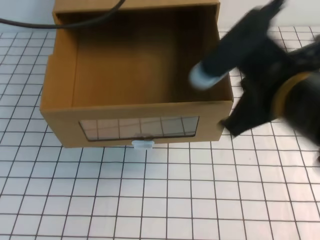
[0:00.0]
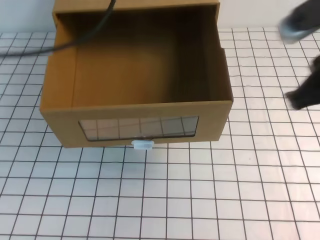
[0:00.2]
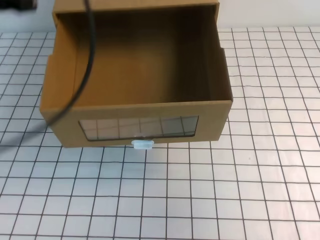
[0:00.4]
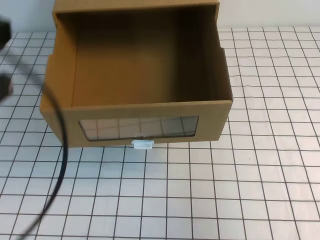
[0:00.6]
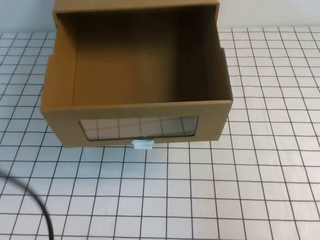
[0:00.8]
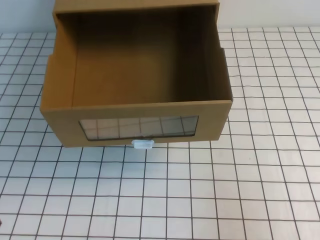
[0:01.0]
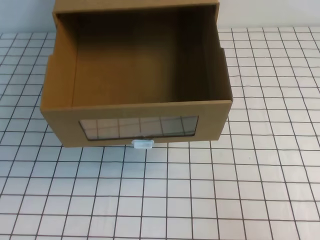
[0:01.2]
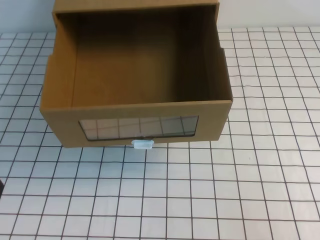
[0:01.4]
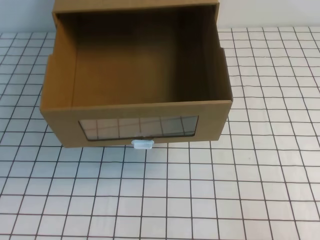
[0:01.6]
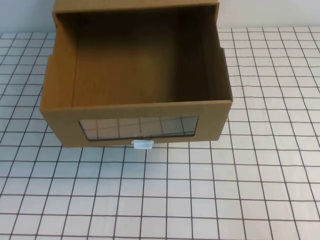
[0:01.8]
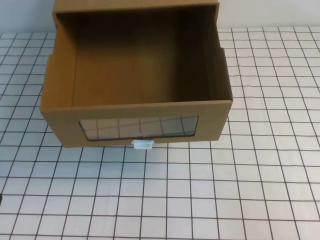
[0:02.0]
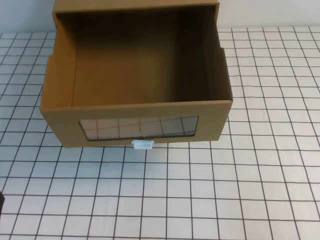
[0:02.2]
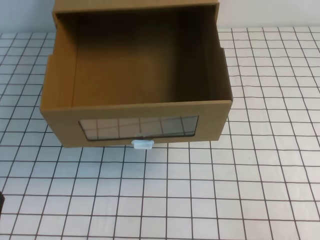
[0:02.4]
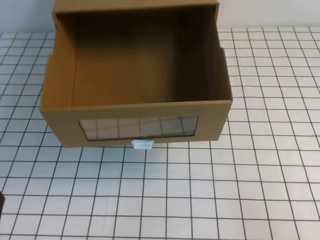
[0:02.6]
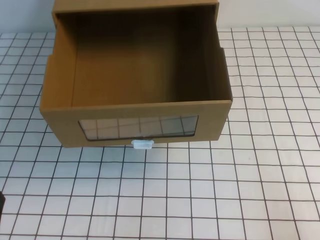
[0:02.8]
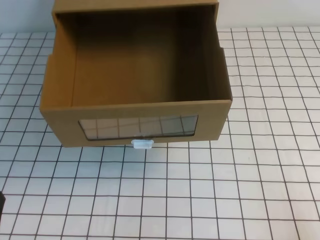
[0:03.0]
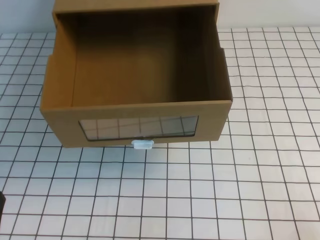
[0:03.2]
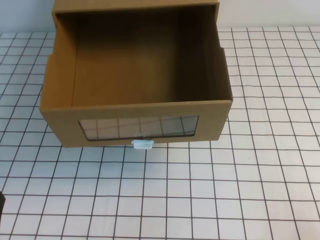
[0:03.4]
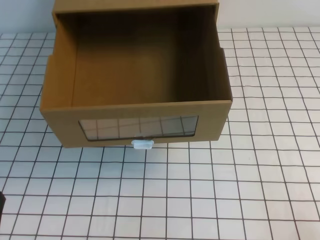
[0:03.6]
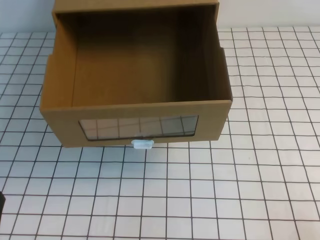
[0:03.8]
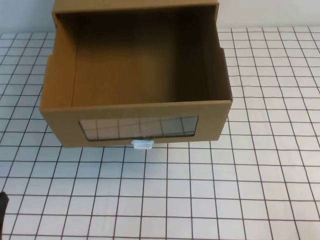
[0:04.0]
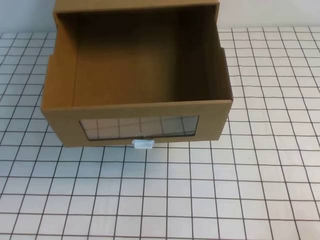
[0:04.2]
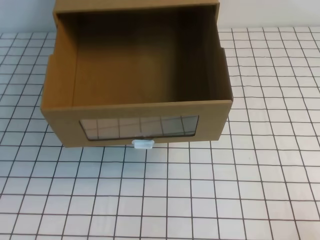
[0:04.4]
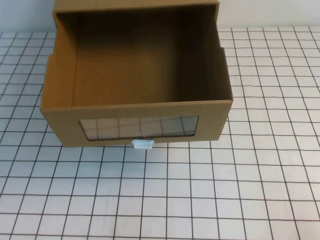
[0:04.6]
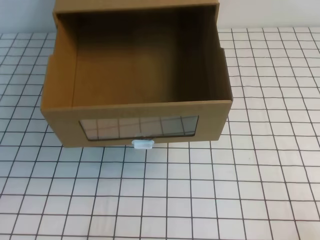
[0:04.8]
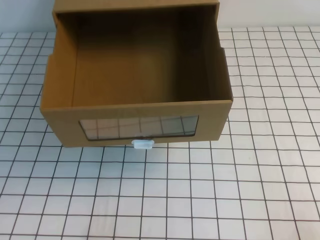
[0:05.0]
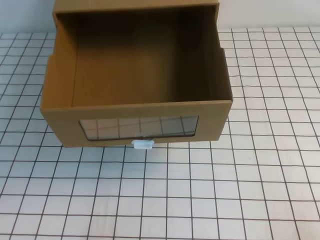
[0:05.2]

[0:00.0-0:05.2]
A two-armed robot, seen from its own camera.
Task of the whole recording: open the shoebox on the white tablecloth.
Step, 0:00.0 to 0:05.2: Open the shoe box.
0:00.0 to 0:01.8: The left gripper travels backward and downward by roughly 40 cm; the right gripper is displaced to the right, backward and downward by roughly 25 cm.

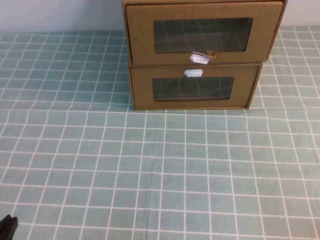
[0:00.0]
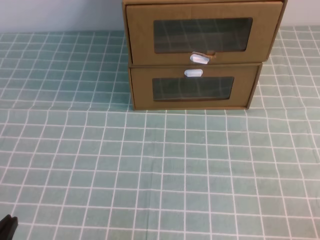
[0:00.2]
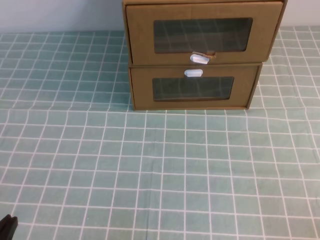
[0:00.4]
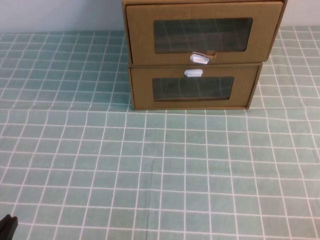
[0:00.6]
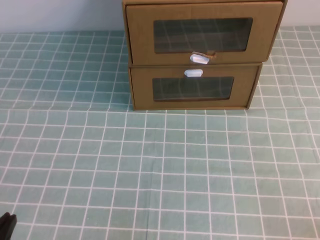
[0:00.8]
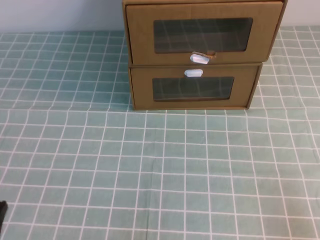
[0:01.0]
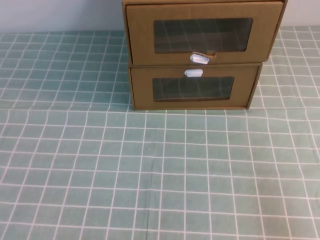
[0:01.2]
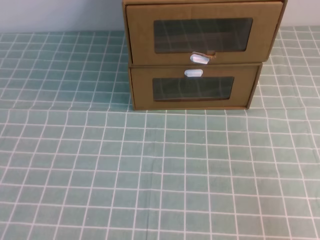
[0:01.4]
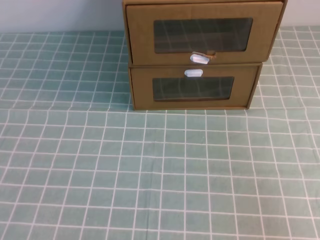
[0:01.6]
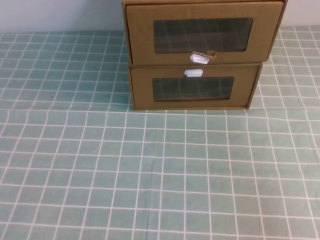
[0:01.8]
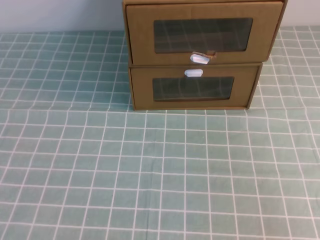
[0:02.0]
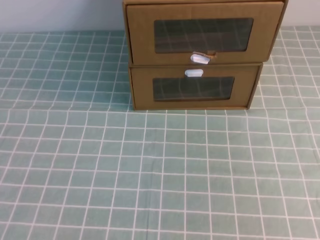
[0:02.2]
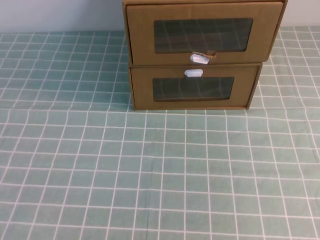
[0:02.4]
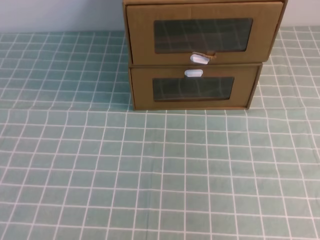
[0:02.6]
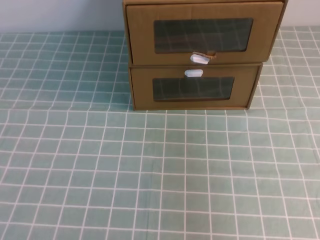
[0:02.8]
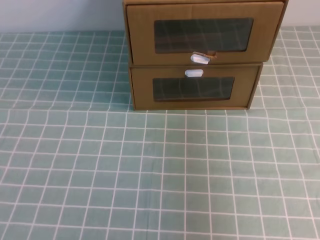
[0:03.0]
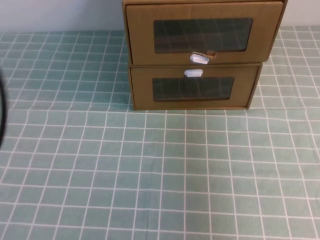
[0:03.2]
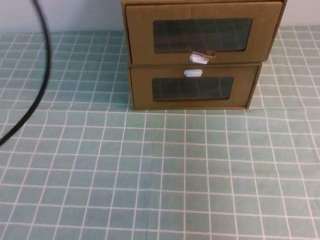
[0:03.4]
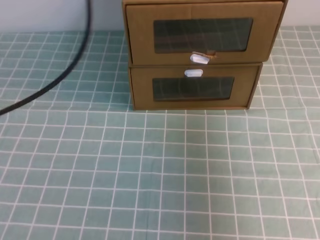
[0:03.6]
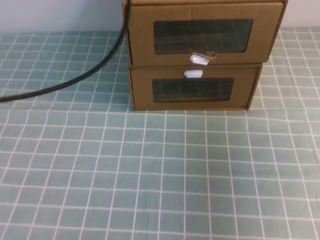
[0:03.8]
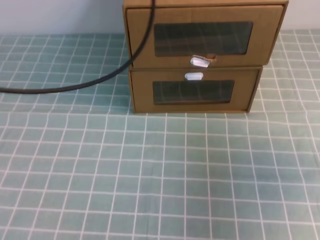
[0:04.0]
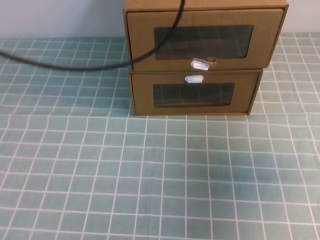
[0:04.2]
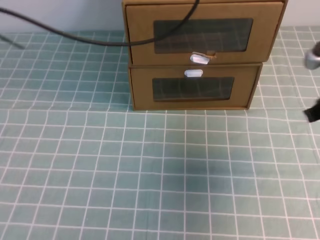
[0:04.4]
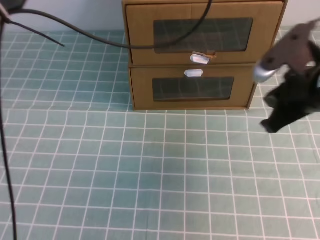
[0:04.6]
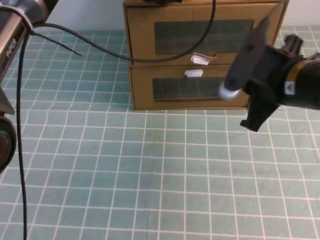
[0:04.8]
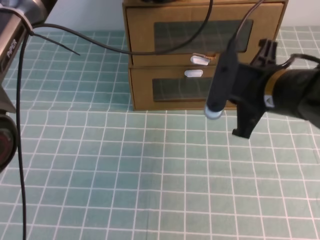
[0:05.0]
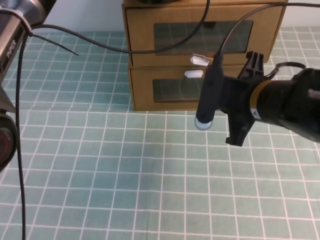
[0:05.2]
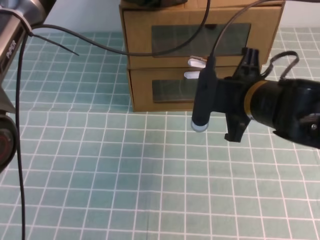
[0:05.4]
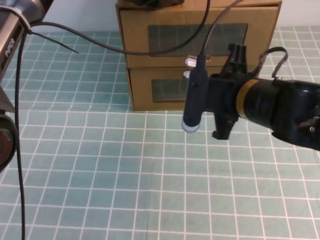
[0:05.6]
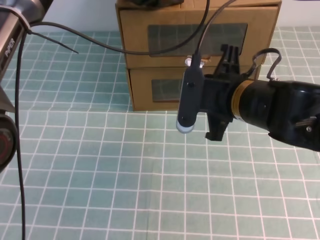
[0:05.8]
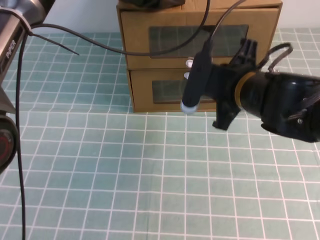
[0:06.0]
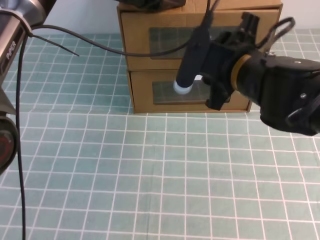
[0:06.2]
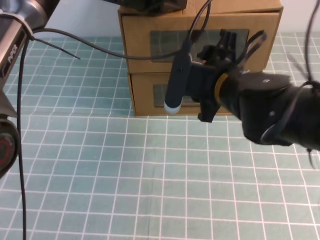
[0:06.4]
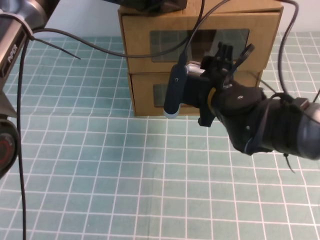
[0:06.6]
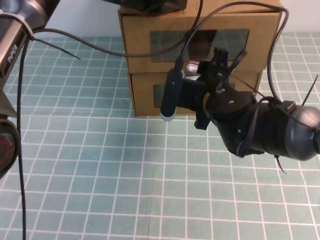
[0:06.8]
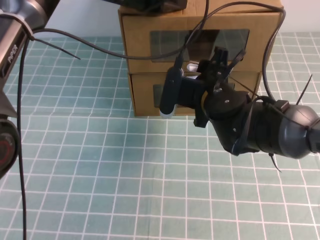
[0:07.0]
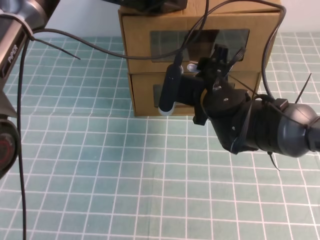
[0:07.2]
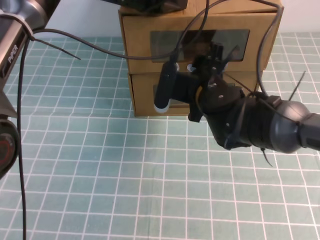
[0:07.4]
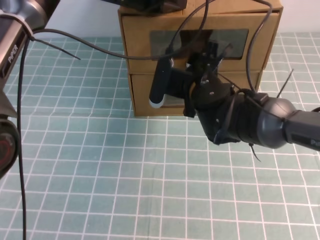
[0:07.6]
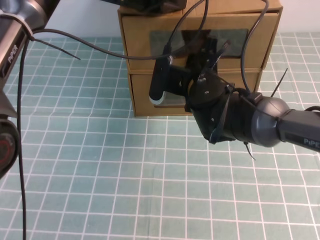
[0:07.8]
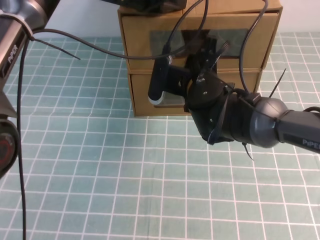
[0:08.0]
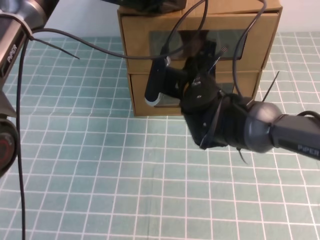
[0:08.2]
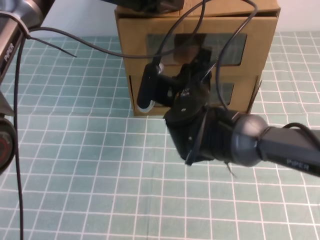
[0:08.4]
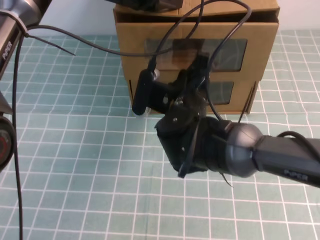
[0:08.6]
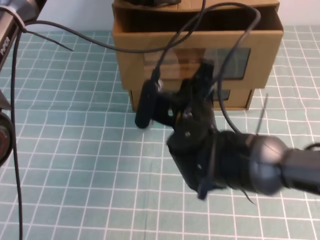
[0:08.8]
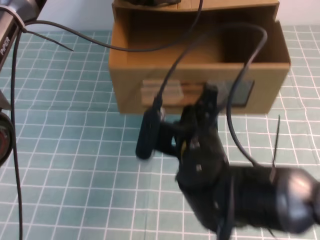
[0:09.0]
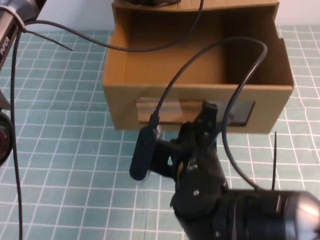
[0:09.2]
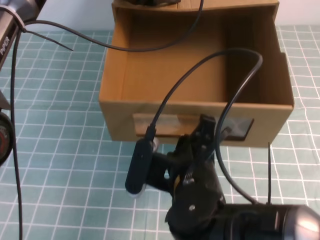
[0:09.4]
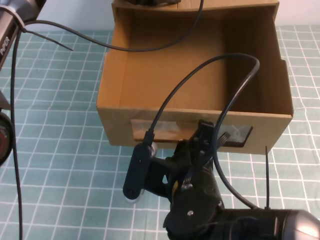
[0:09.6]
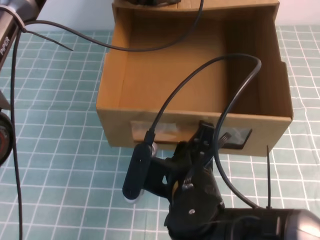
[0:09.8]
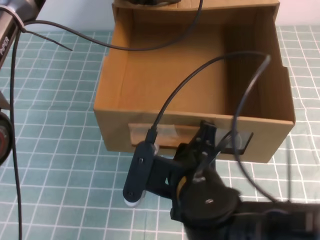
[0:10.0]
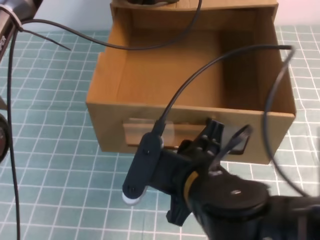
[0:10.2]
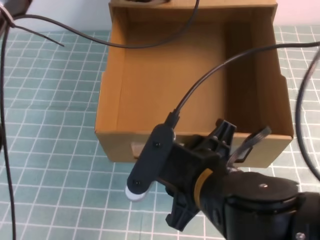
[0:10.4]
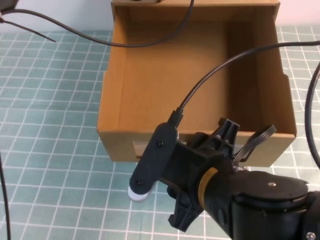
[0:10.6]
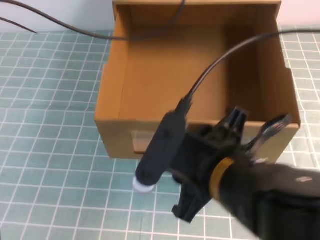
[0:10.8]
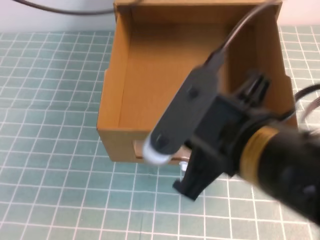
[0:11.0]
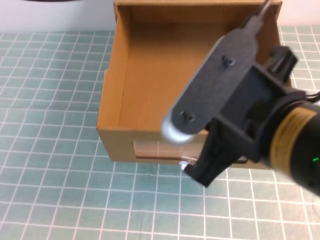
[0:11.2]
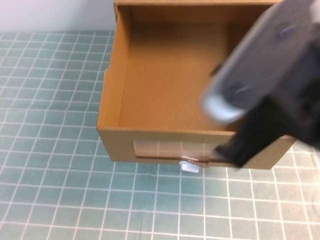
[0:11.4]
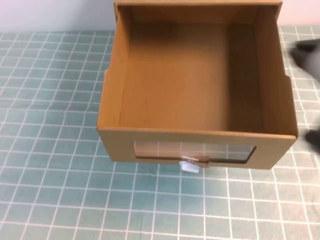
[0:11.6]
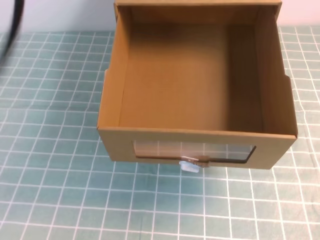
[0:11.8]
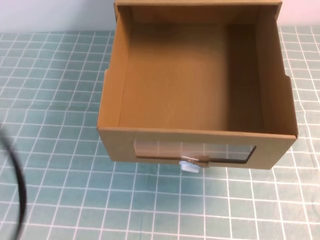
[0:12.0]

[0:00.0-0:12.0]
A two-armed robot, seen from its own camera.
Task of the whole recording: open the shoebox on the cyan tablecloth.
0:01.6 to 0:03.0: The left gripper heads upward, covering about 25 cm, while the right gripper is displaced upward and forward by about 25 cm.
0:03.0 to 0:04.4: The right gripper shifts roughly 20 cm downward and forward. Meanwhile the left gripper is displaced forward and to the right by about 35 cm.
0:04.4 to 0:06.0: The right gripper travels to the left by approximately 15 cm. The left gripper moves downward and forward, some 15 cm.
0:06.0 to 0:07.6: The right gripper moves forward, roughly 5 cm, and opens its fingers.
0:07.6 to 0:09.0: The right gripper heads backward, covering approximately 10 cm, and closes.
0:09.0 to 0:10.4: The right gripper is displaced backward by roughly 10 cm, and opens.
0:10.4 to 0:12.0: The left gripper is displaced backward and to the left by some 40 cm, while the right gripper heads to the right and upward, covering approximately 25 cm, and closes its fingers.

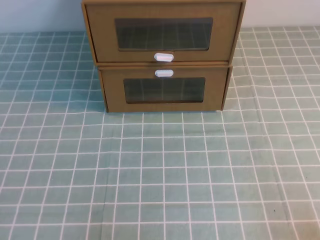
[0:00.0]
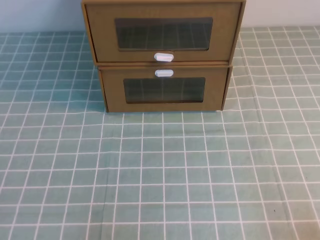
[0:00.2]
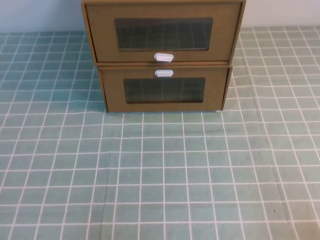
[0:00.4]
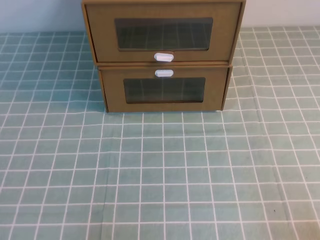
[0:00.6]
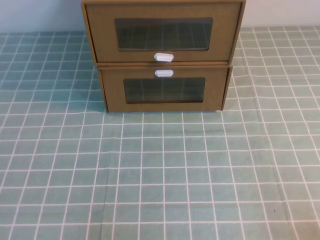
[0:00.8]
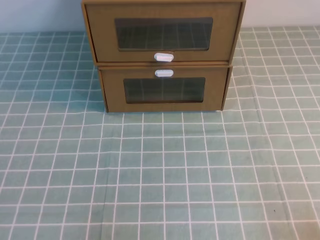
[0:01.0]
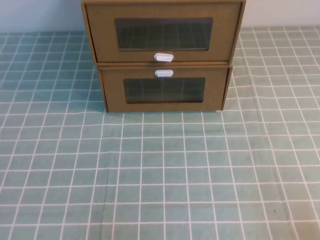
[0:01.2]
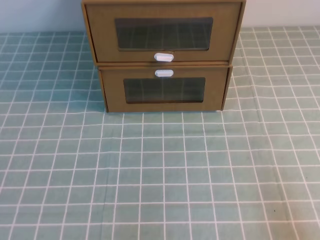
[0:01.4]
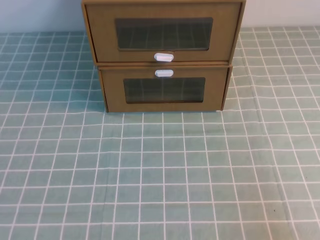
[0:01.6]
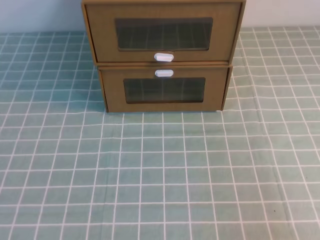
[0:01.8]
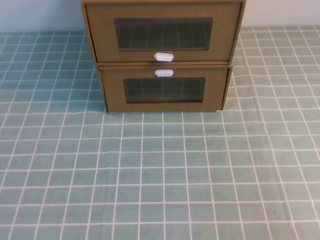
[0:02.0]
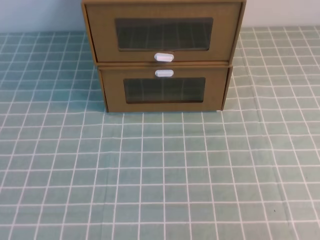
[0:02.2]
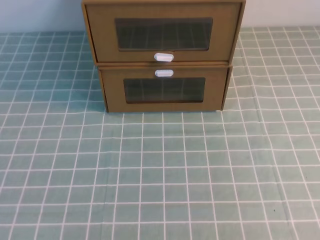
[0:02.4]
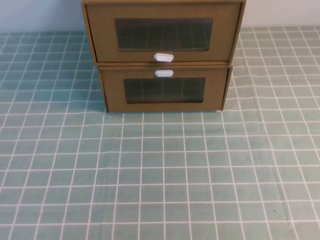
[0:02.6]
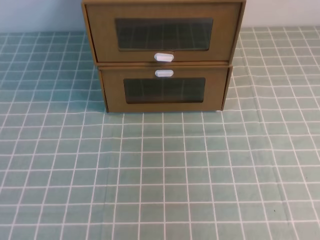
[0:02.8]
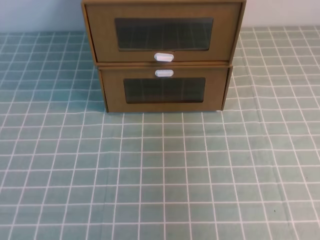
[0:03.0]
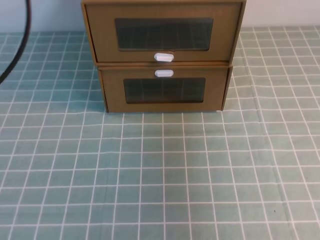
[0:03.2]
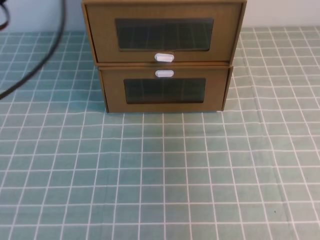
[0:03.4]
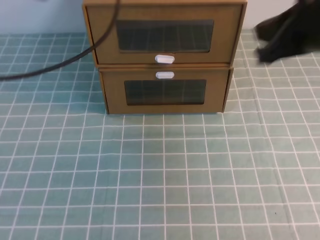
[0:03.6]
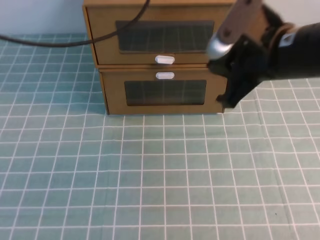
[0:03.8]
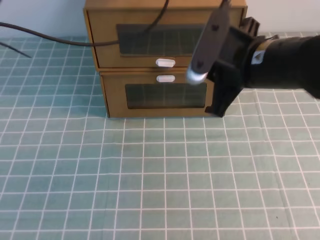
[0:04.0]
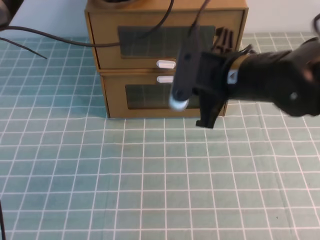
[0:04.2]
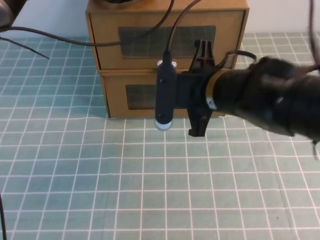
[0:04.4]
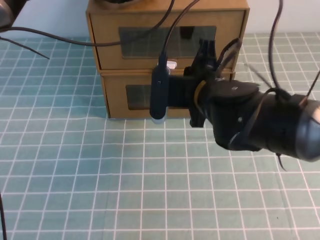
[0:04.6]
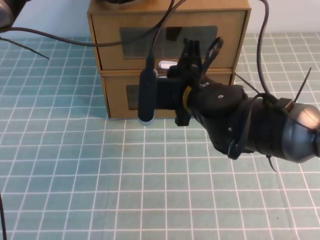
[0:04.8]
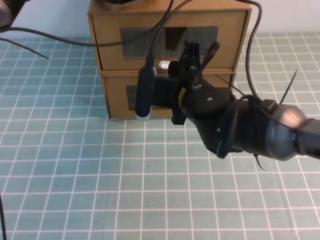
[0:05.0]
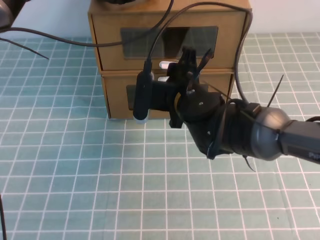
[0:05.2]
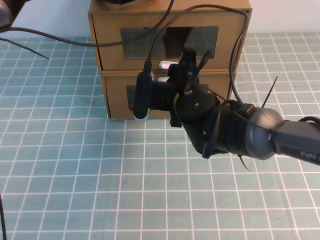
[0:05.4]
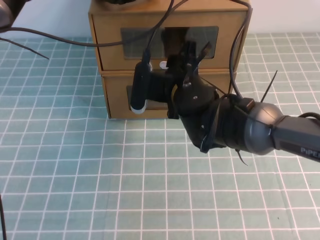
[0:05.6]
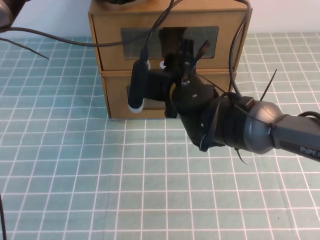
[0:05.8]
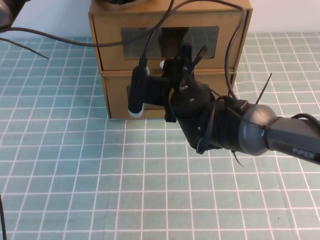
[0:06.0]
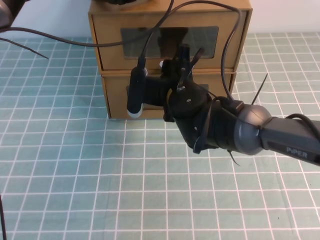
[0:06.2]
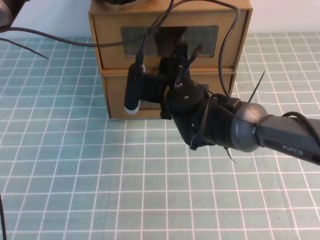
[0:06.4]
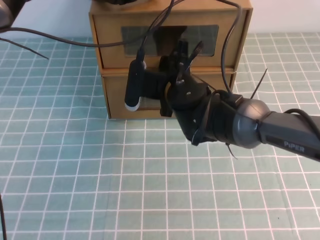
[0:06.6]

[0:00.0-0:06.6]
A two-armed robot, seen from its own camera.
Task of the whole recording: open the shoebox on the cyan tablecloth.
0:01.6 to 0:03.2: Both grippers travel together upward and forward, about 30 cm.
0:03.2 to 0:05.0: The right gripper shifts roughly 35 cm to the left, downward and forward, and opens up; the left gripper travels forward and to the right by some 25 cm.
0:05.0 to 0:06.6: The grippers make only small movements.
